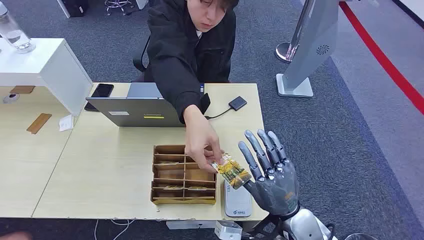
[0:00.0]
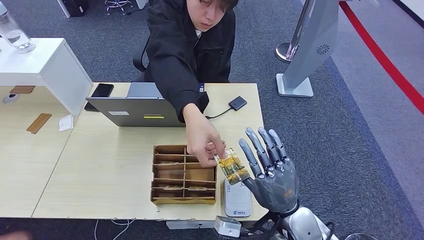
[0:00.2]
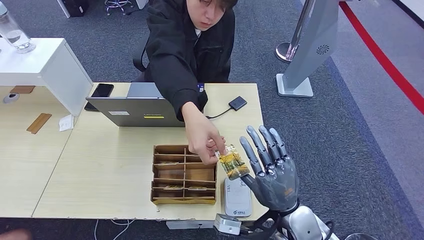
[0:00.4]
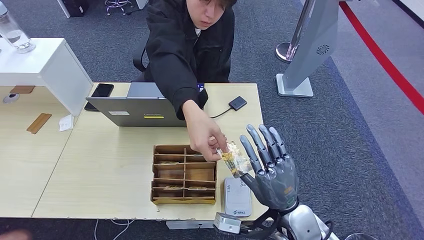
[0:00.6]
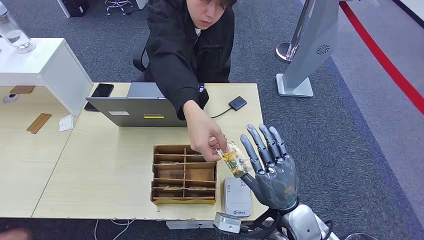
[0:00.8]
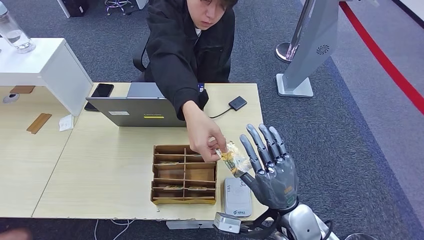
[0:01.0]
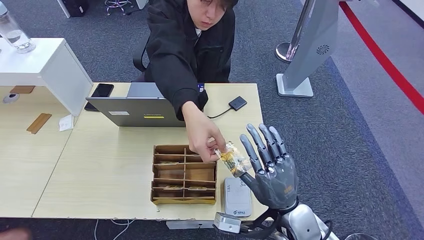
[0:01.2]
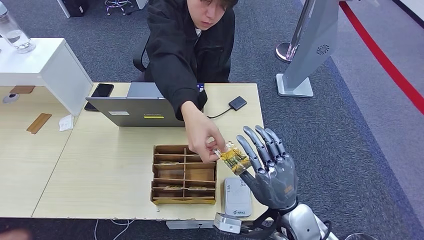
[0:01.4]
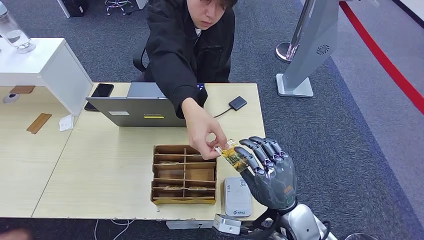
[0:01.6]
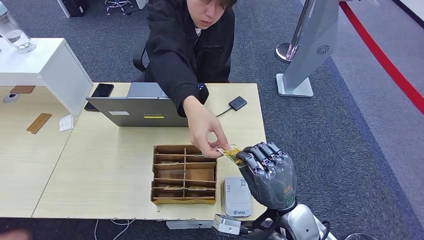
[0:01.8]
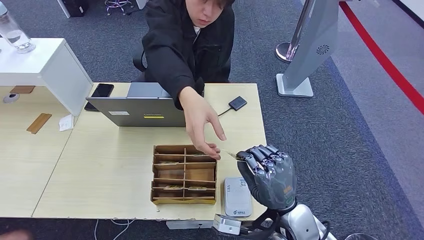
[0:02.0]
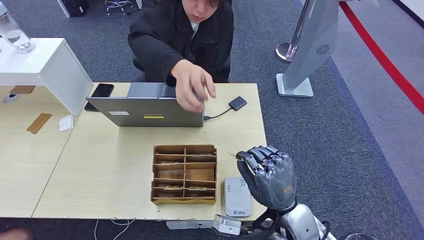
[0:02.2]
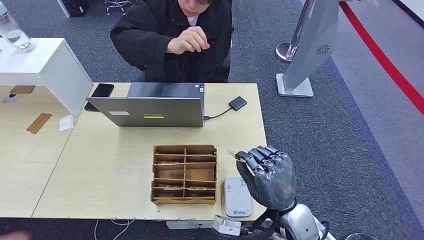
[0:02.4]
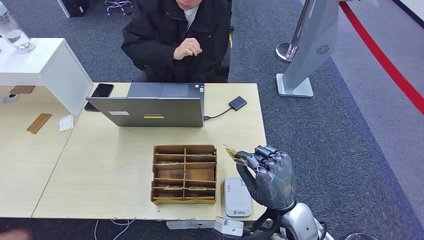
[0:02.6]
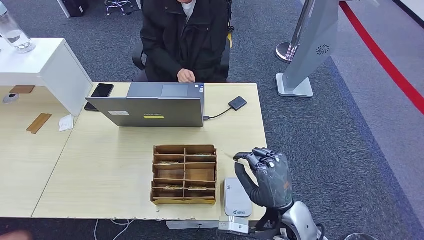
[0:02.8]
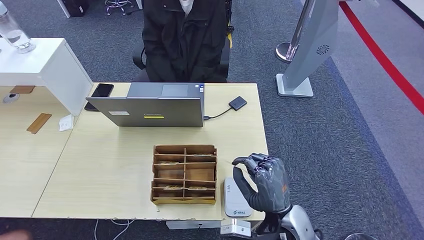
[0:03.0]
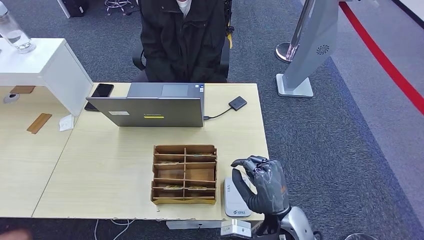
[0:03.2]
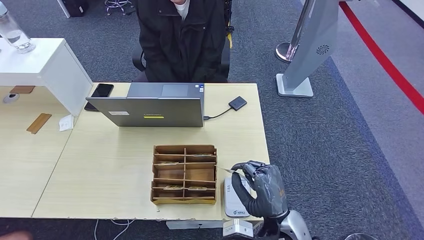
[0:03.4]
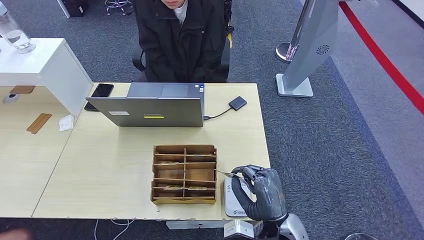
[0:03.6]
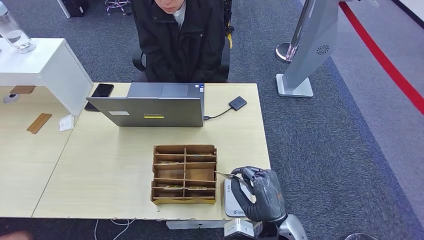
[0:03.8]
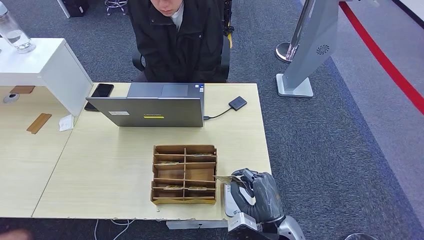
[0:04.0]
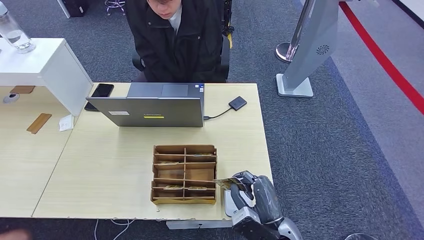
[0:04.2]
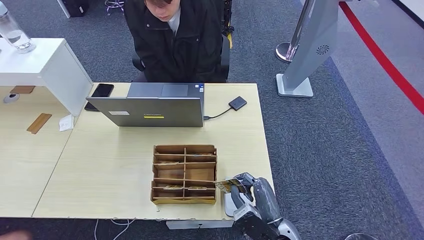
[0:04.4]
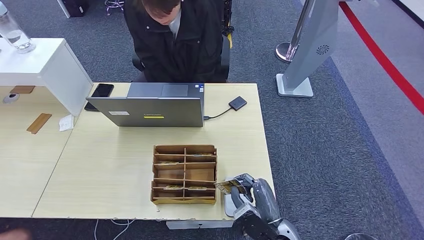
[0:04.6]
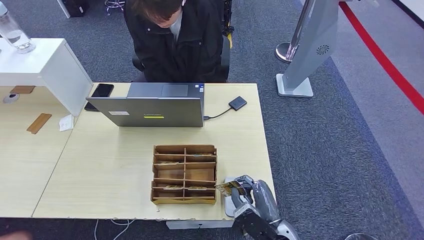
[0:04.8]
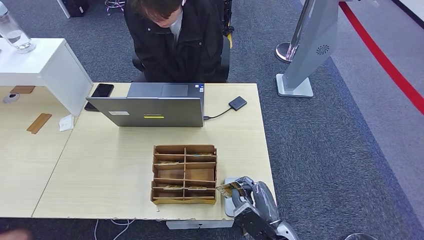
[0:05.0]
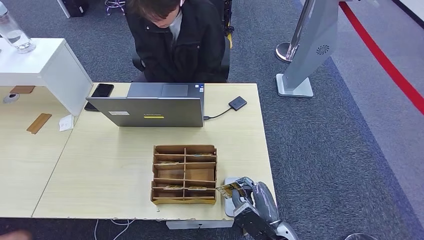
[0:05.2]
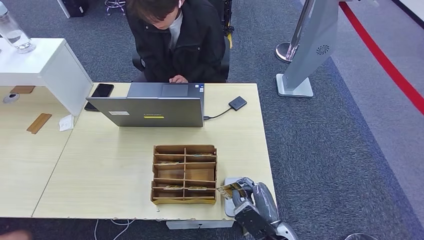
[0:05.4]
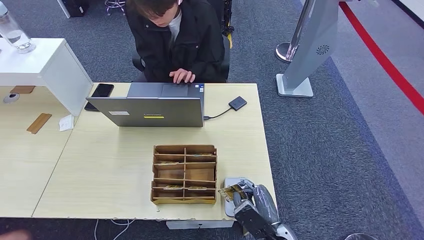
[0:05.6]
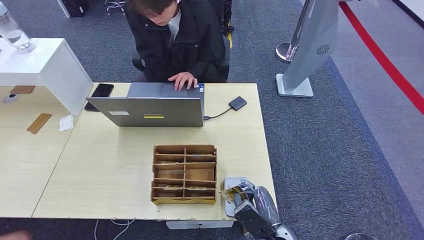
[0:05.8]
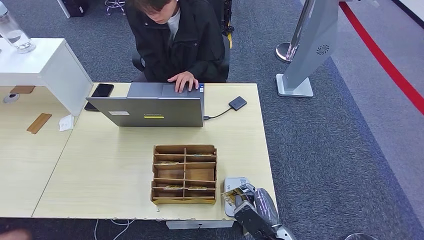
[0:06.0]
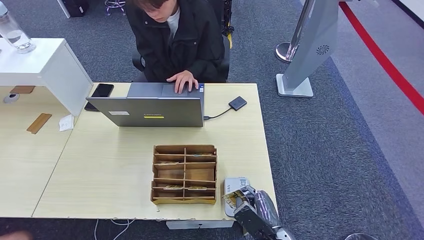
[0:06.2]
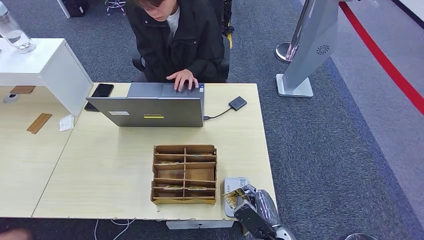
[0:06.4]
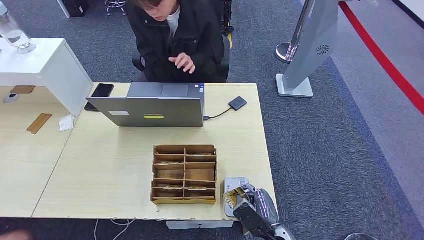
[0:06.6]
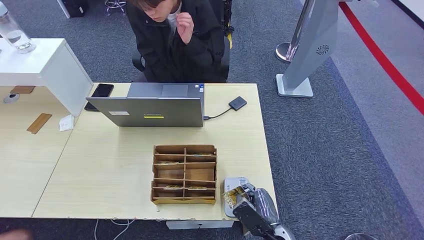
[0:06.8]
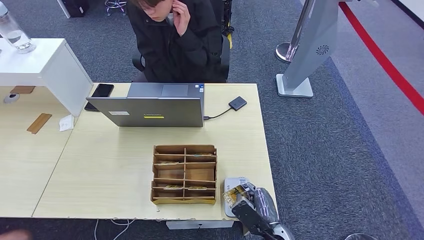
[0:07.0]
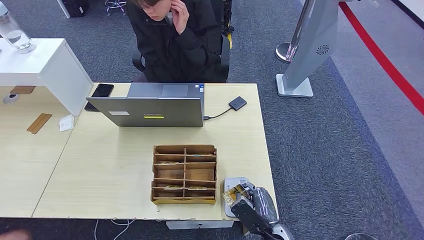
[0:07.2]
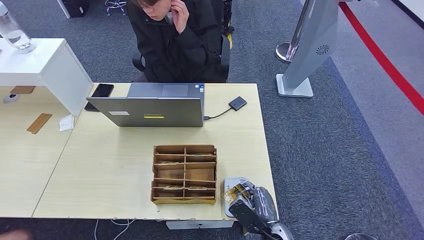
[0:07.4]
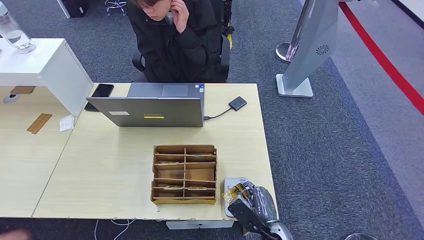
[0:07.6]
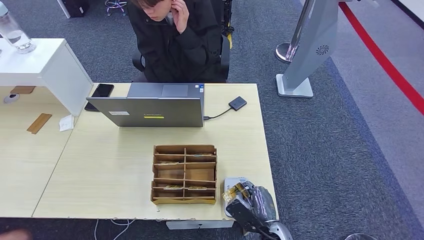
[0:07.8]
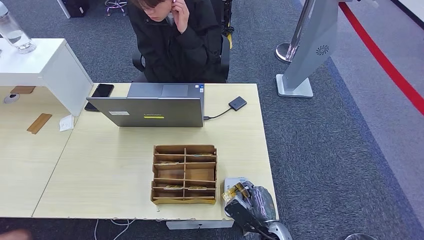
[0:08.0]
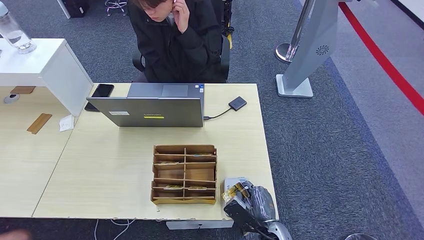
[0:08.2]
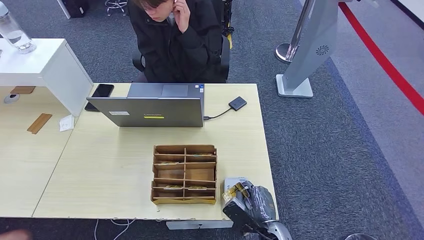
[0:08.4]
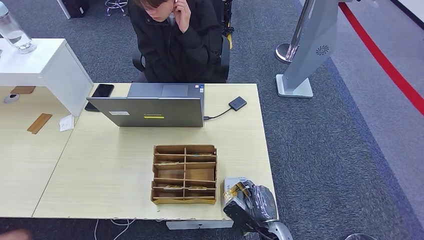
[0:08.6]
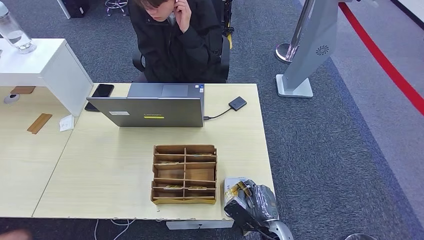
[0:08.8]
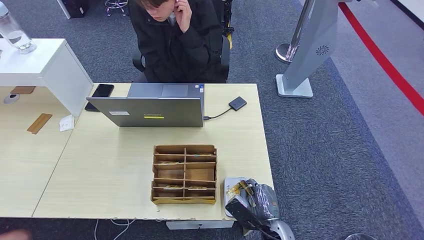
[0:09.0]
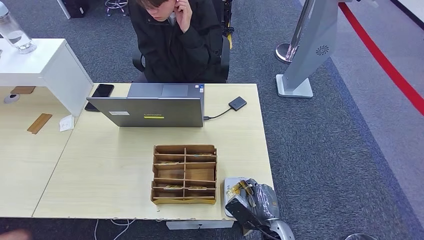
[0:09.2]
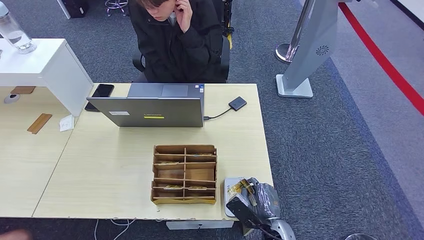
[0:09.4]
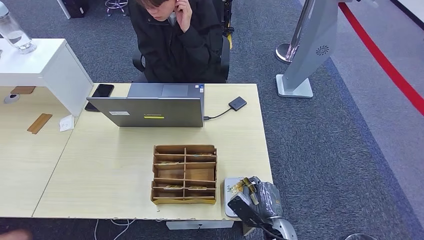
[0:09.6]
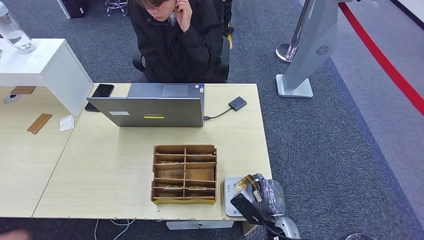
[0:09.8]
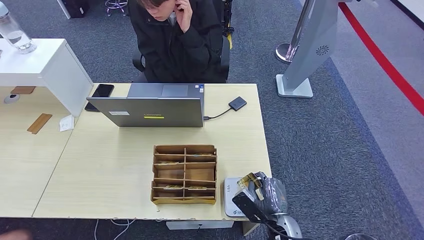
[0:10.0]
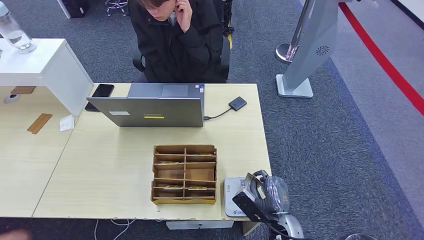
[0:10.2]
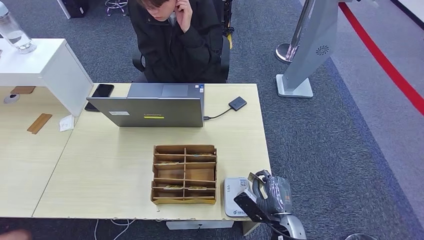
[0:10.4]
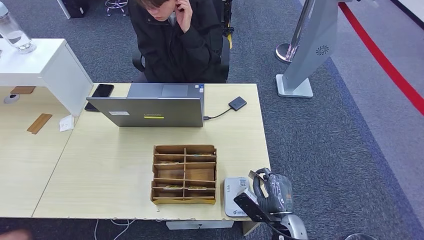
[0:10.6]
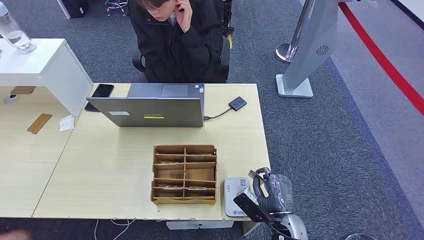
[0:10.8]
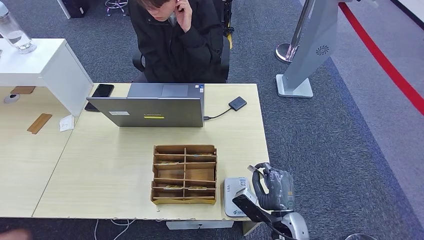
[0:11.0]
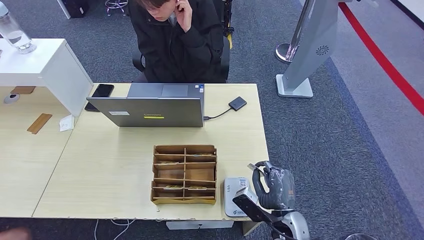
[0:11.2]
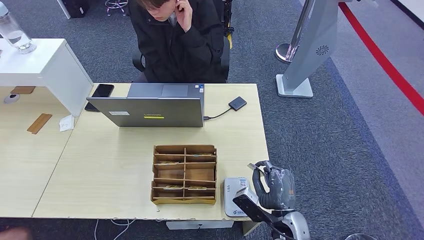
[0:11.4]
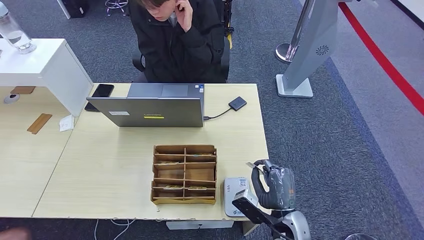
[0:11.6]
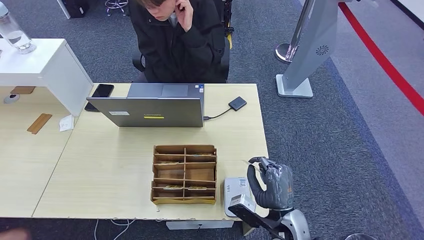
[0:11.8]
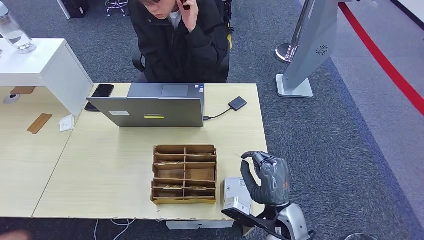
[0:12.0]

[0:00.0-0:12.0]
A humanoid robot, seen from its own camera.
Step, 0:00.0 to 0:02.4: Take the ID card from the person's hand.
Step, 0:02.6 to 0:08.0: Place the ID card on the card reader.
0:03.0 to 0:04.4: The right hand goes about 5 cm downward.
0:04.4 to 0:06.0: The hands stay close to where they were, moving slightly.
0:06.0 to 0:09.0: The hands make only small movements.
0:09.0 to 0:10.4: The hands stay close to where they were, moving slightly.
0:10.4 to 0:12.0: The right hand is displaced upward by roughly 10 cm.

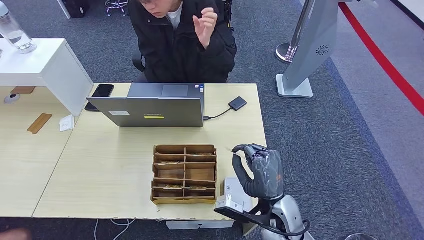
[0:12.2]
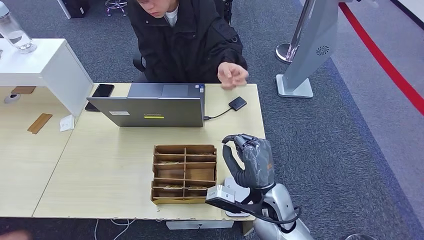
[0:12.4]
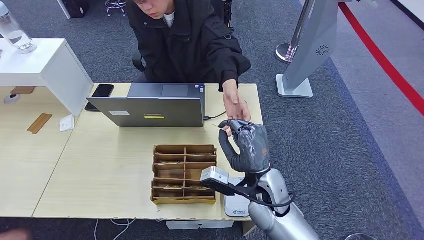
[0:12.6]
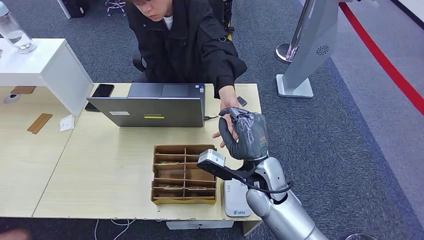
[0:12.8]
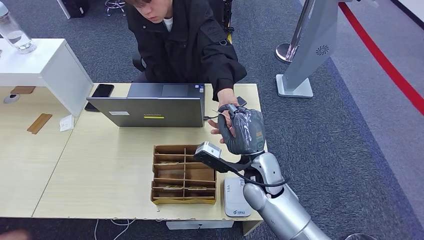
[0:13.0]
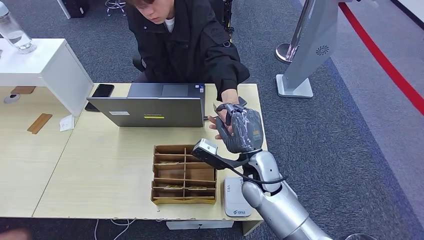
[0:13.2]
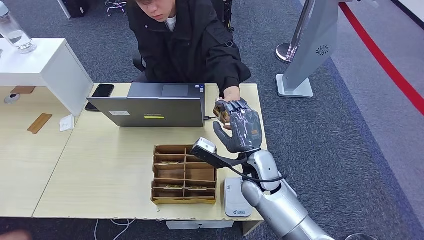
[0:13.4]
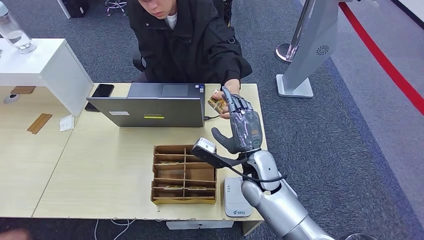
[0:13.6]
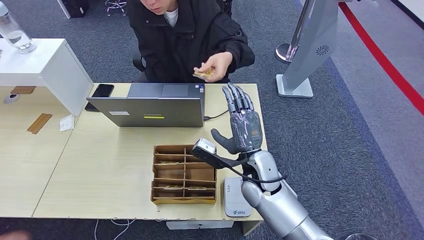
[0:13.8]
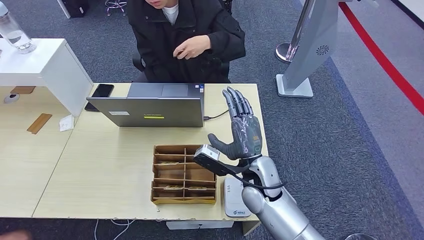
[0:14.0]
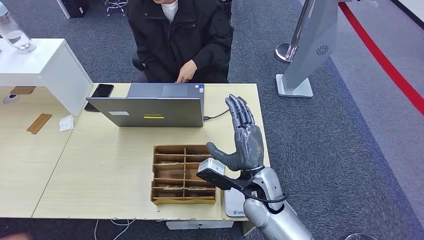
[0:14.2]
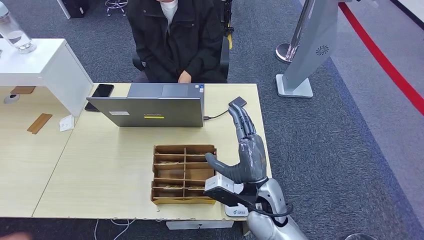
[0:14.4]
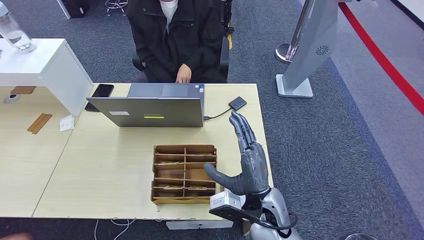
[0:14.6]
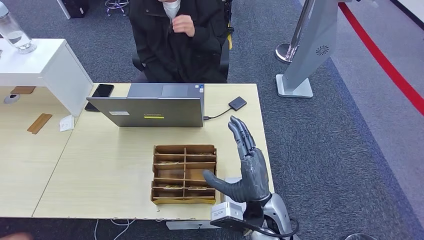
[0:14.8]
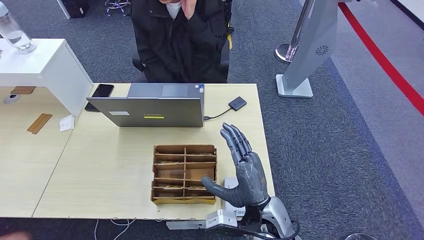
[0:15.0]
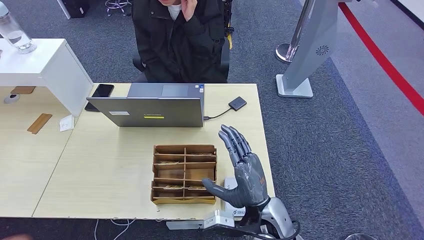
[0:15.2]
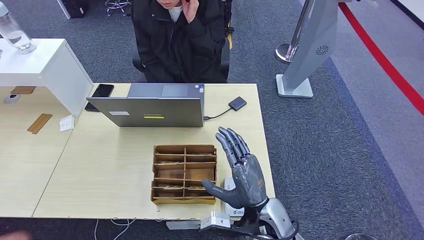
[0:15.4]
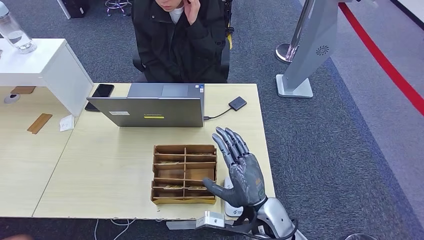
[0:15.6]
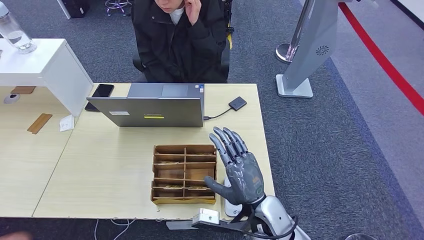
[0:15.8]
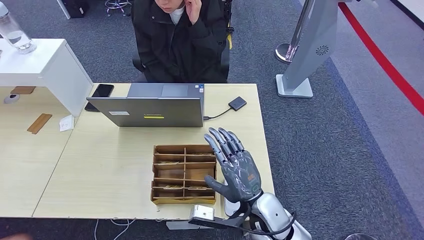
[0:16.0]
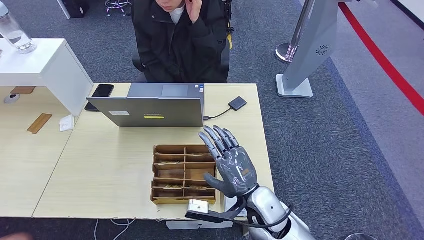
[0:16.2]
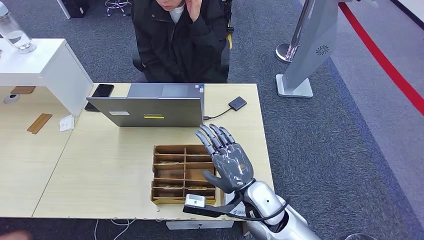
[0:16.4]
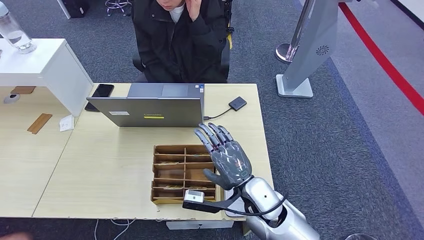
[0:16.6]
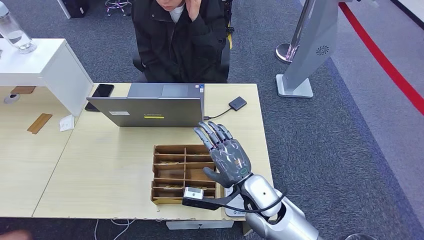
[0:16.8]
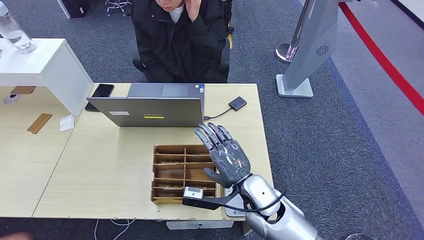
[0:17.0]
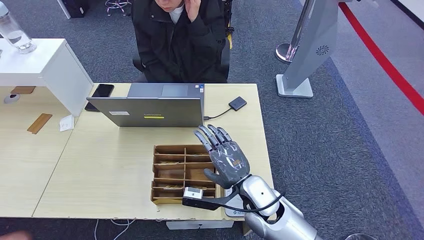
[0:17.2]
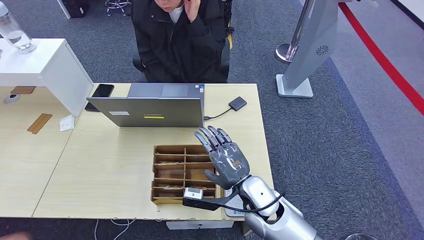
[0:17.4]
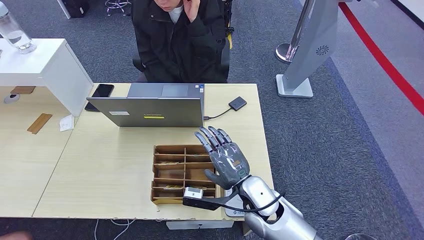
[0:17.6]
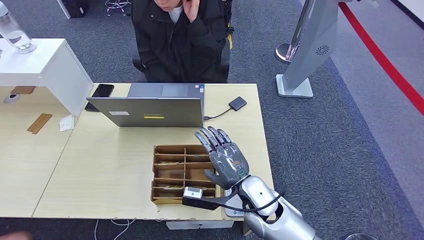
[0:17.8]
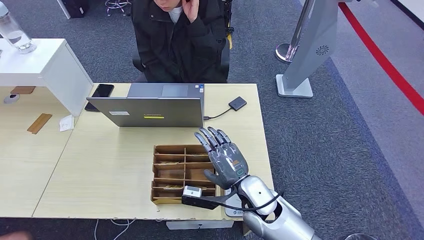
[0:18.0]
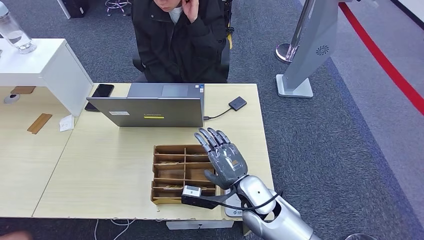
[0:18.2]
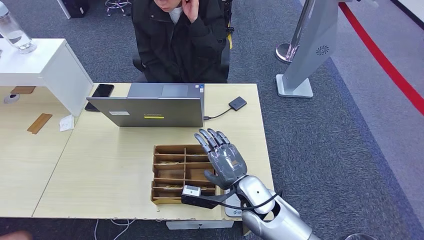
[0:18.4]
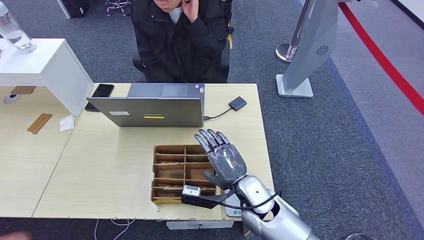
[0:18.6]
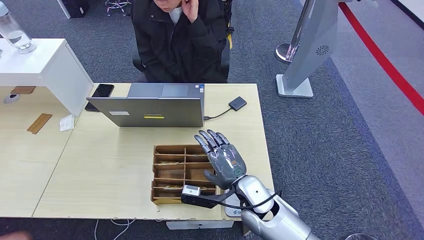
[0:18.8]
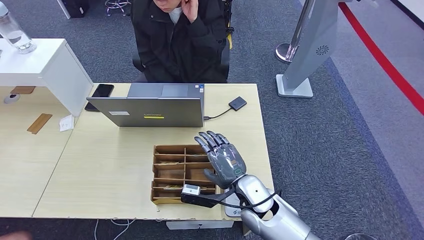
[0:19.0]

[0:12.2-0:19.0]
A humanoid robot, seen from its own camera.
0:12.2 to 0:13.6: The right hand travels forward by about 10 cm.
0:13.6 to 0:15.0: The right hand goes about 10 cm backward.
0:16.2 to 0:19.0: The hands make only small movements.
